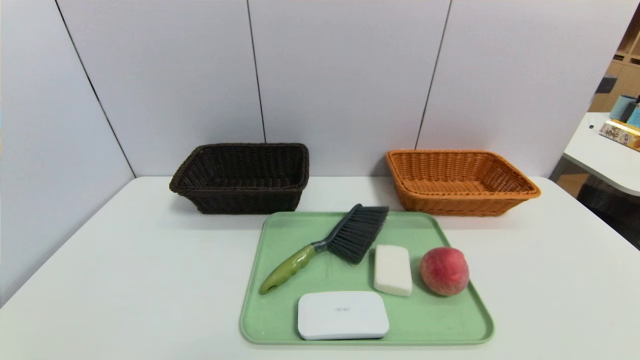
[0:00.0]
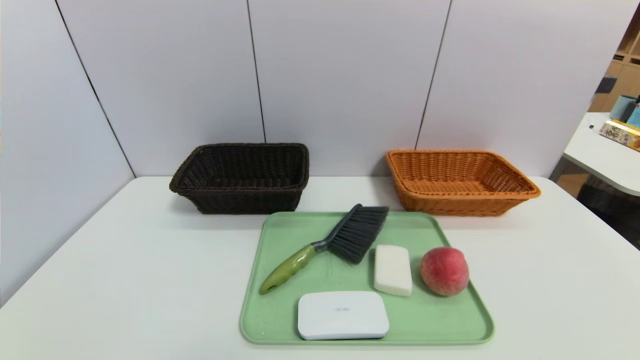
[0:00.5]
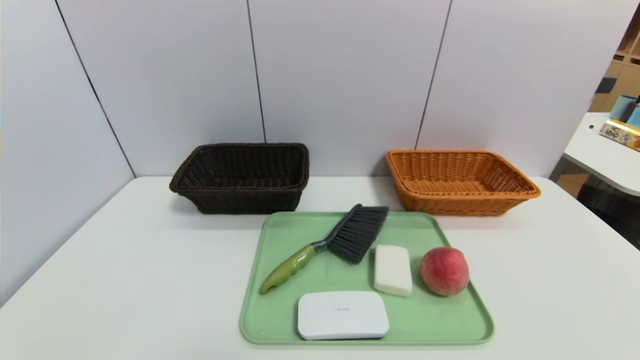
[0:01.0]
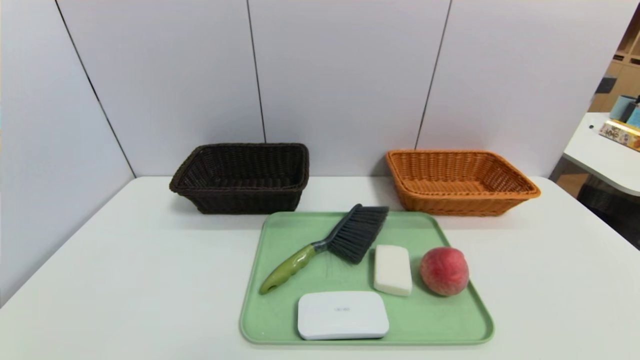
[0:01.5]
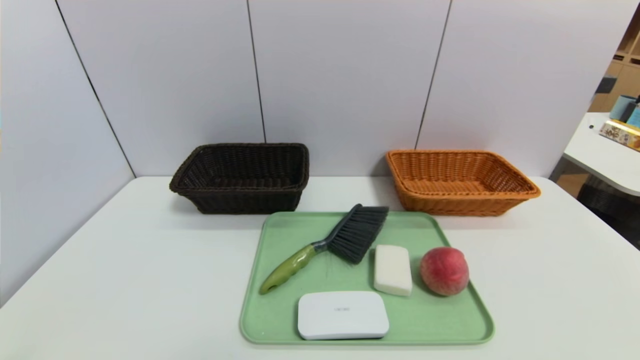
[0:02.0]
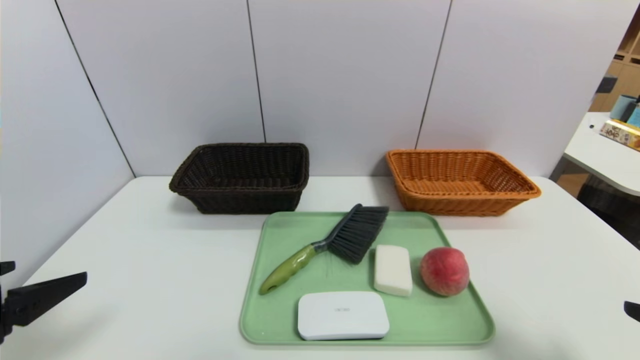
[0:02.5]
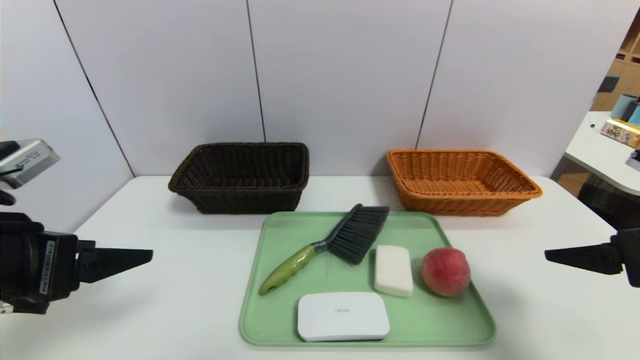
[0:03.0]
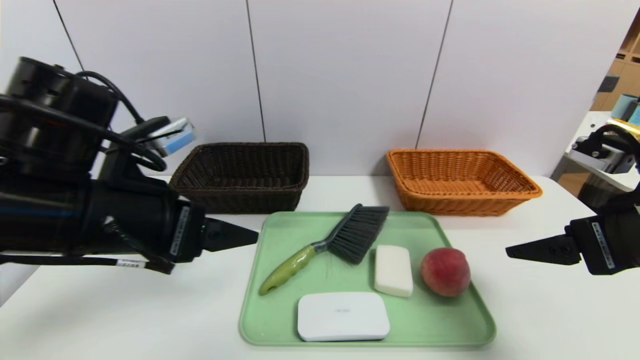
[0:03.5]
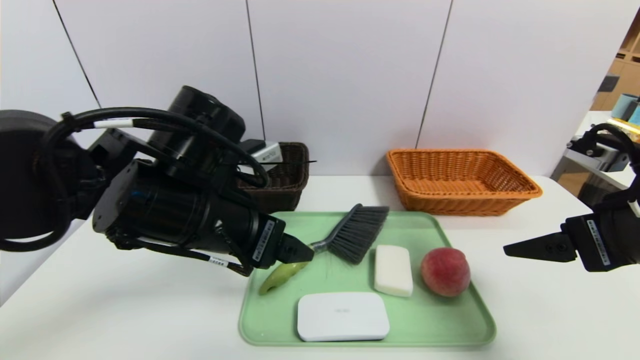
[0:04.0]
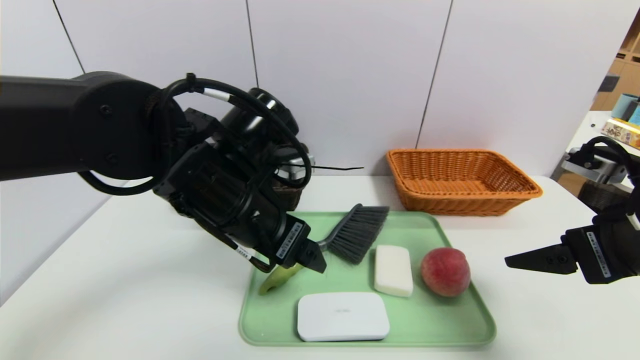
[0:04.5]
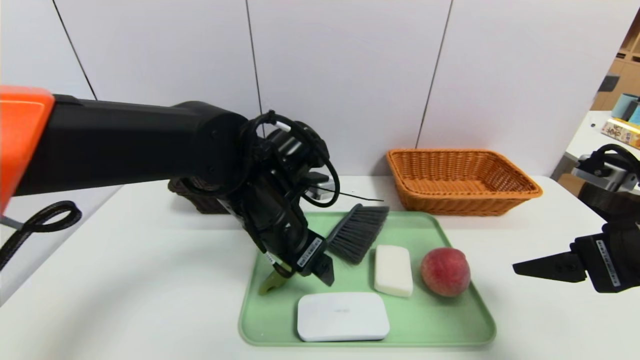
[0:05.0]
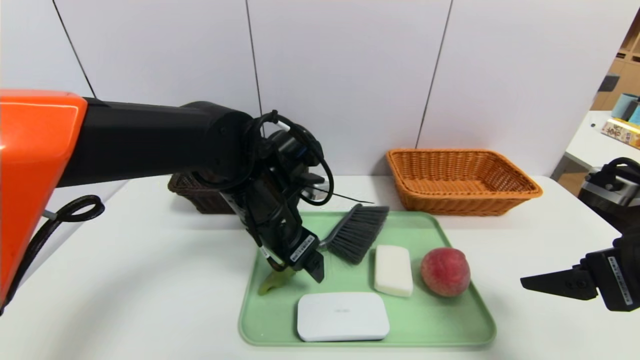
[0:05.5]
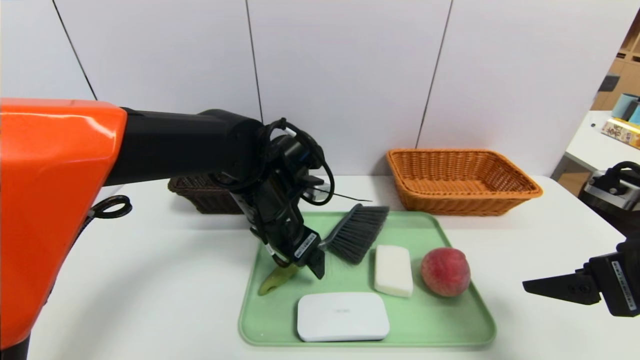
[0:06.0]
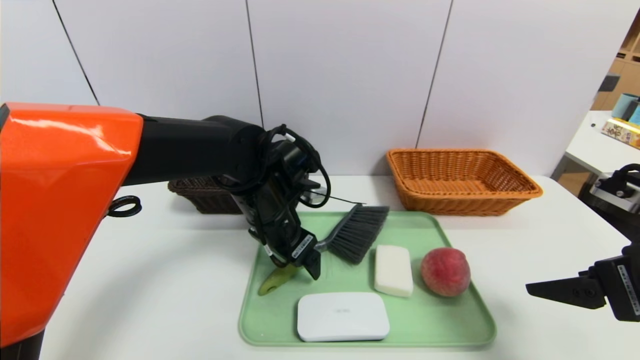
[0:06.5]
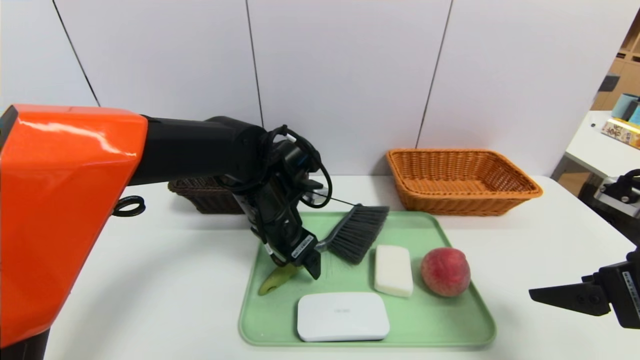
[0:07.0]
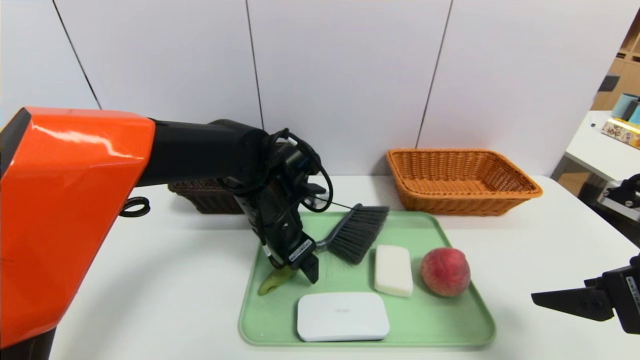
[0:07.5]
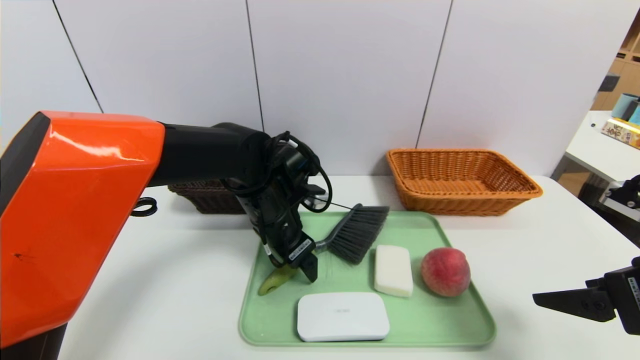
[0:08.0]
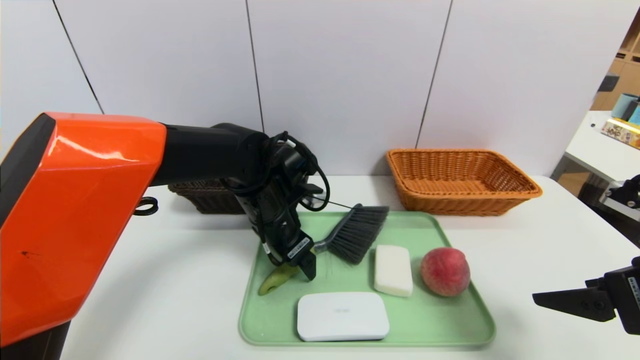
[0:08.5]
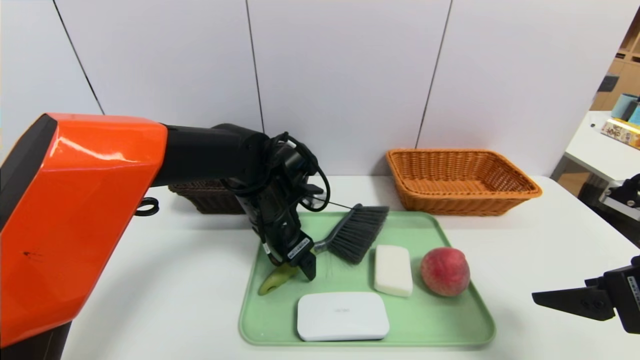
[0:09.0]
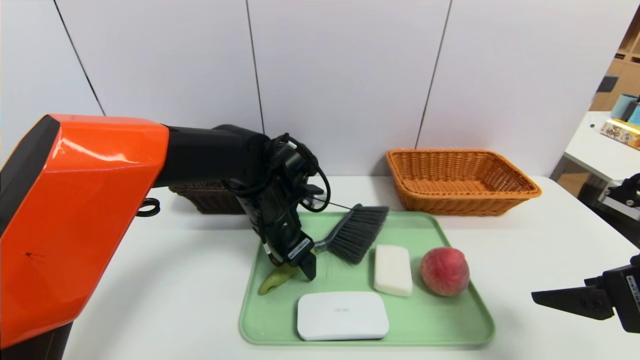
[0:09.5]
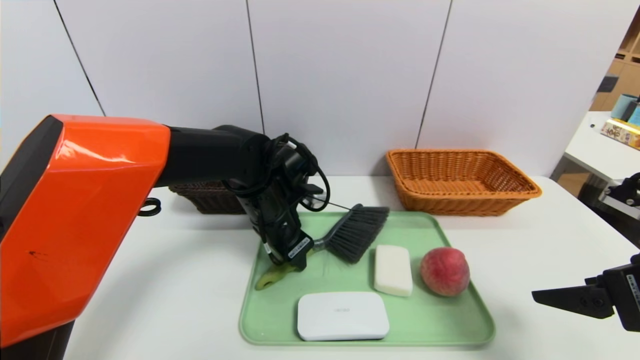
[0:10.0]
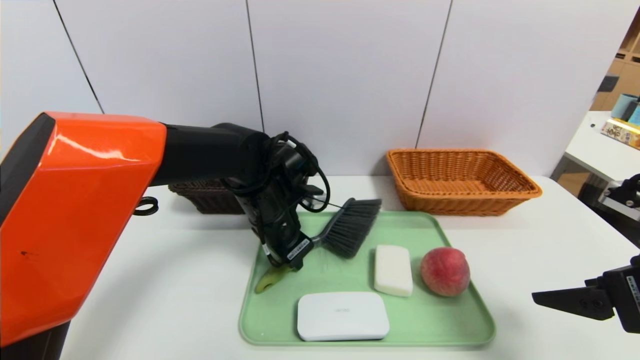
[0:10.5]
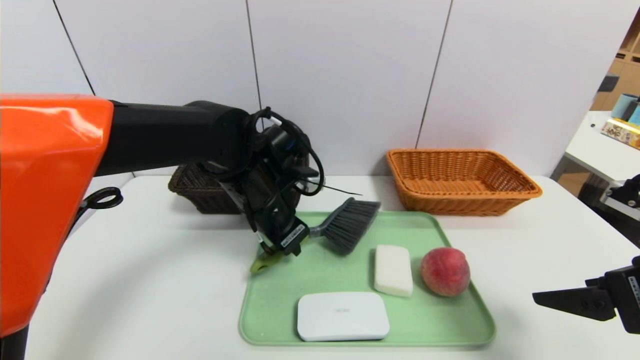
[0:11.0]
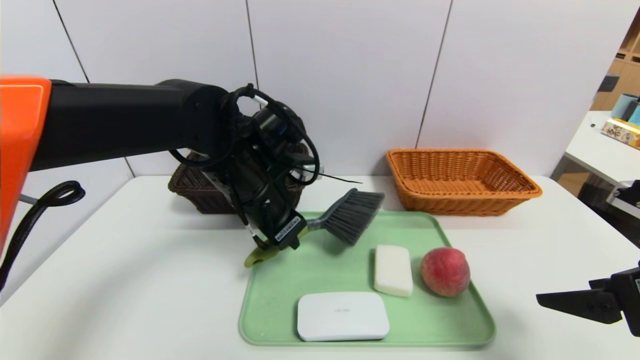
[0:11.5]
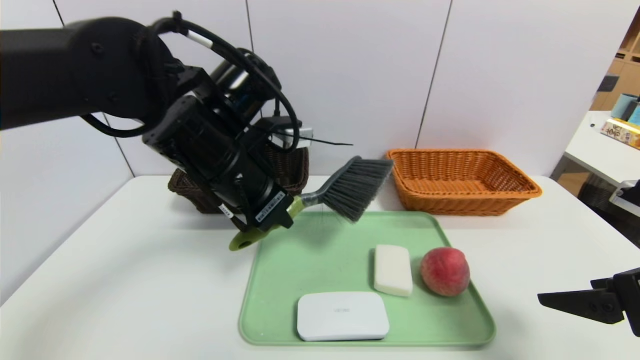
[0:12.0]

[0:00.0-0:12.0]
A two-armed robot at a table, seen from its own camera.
Task of the whole recording: place the food in the right basket with the right gripper, and place the non food items in the left basket with the left gripper.
0:02.0 to 0:04.0: The right gripper shifts approximately 20 cm forward. Meanwhile the left gripper heads forward and to the right, covering some 30 cm.
0:04.0 to 0:06.0: The left gripper shifts approximately 10 cm forward, downward and to the right.
0:06.0 to 0:08.0: The grippers move only a little.
0:08.0 to 0:10.0: The left gripper closes.
0:10.0 to 0:12.0: The left gripper travels upward and backward by about 15 cm.

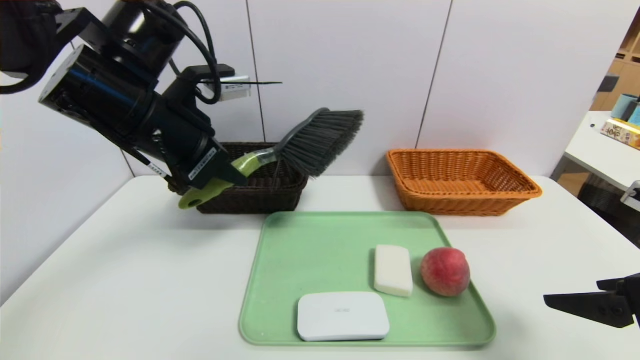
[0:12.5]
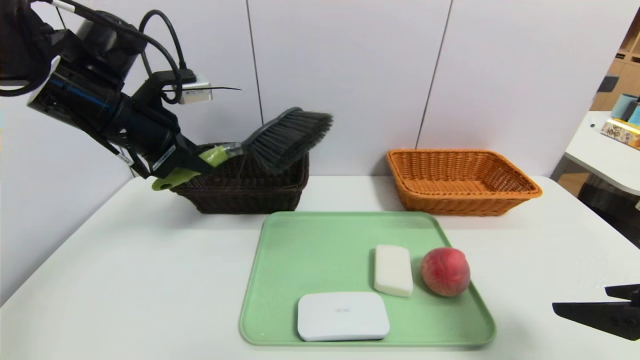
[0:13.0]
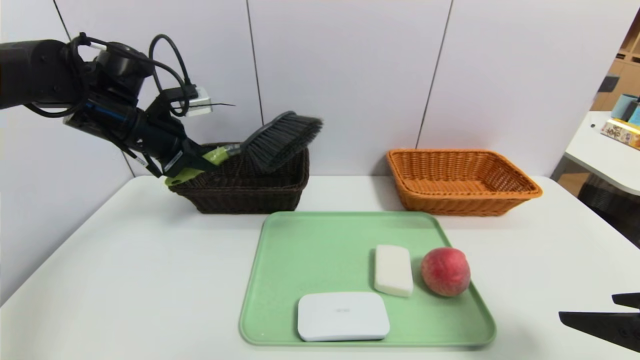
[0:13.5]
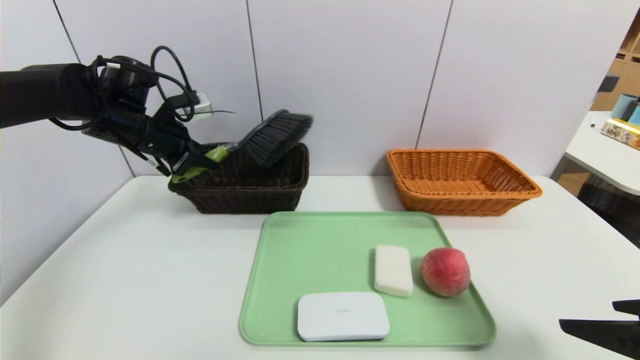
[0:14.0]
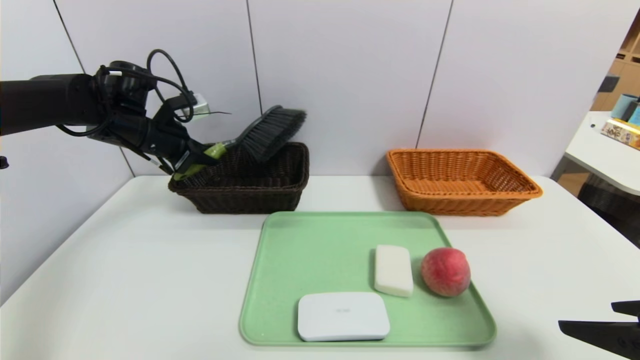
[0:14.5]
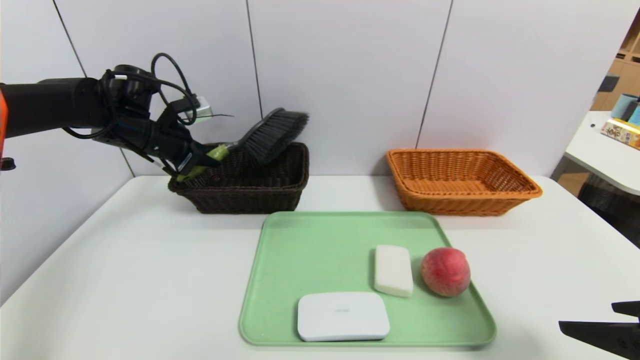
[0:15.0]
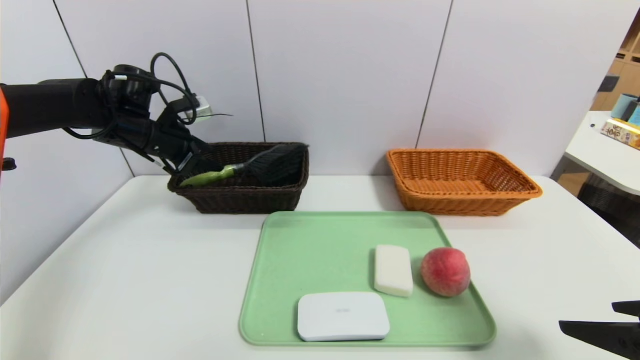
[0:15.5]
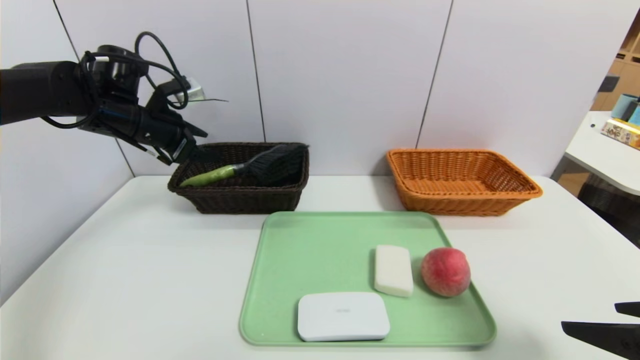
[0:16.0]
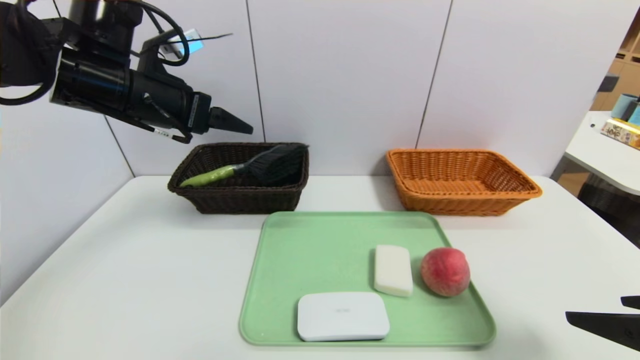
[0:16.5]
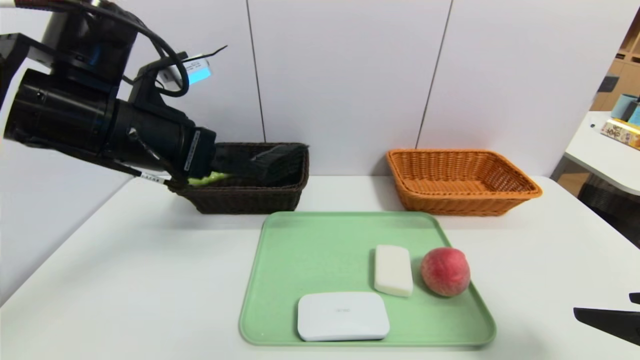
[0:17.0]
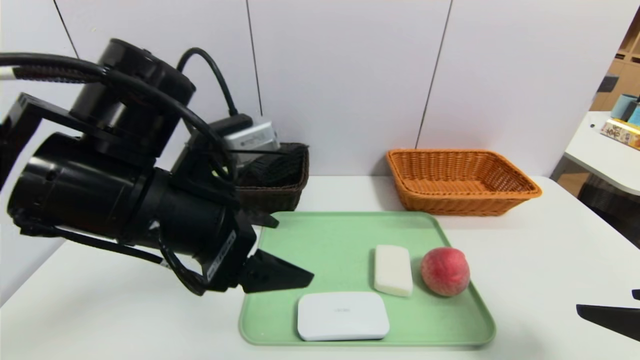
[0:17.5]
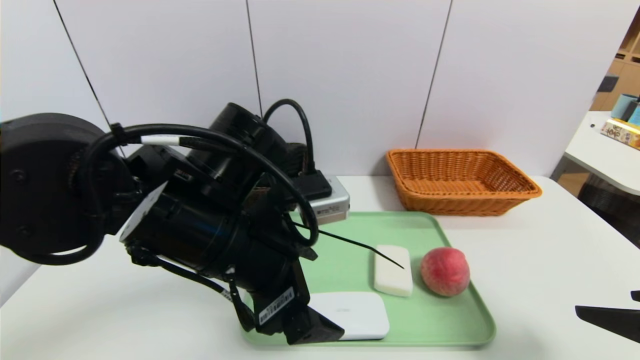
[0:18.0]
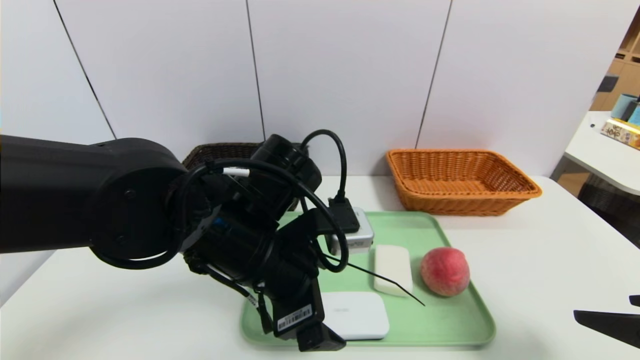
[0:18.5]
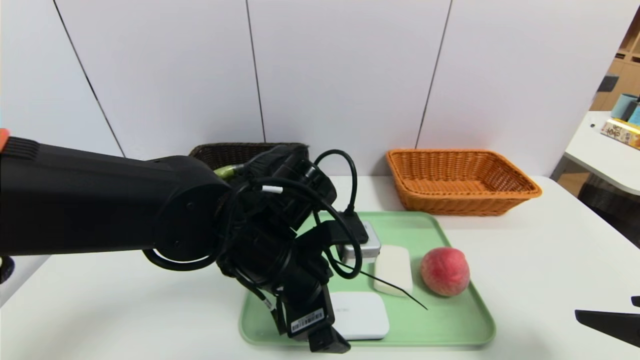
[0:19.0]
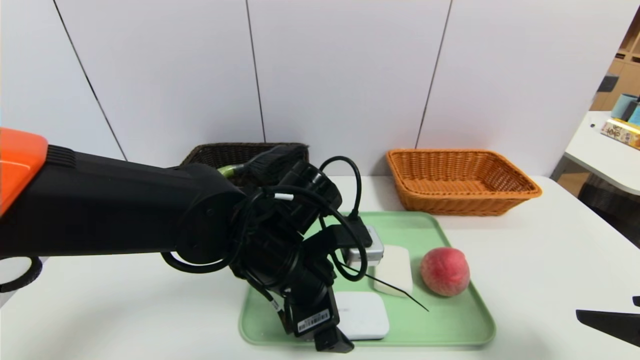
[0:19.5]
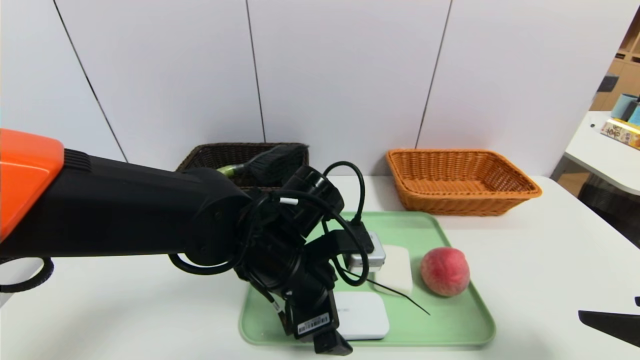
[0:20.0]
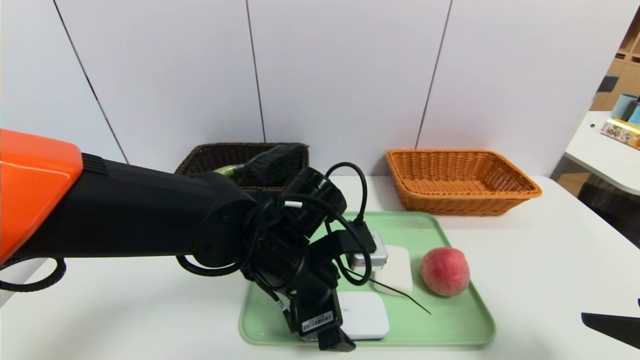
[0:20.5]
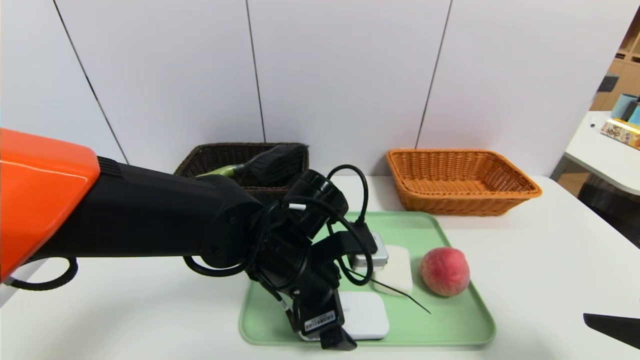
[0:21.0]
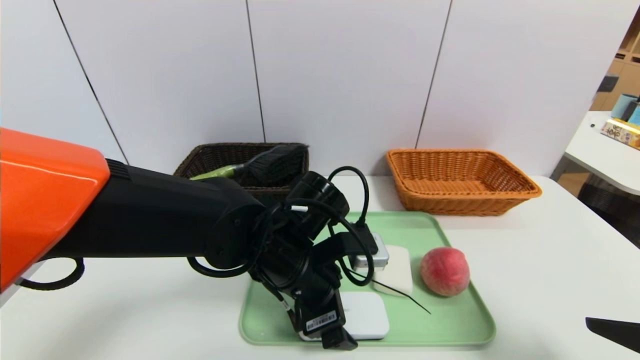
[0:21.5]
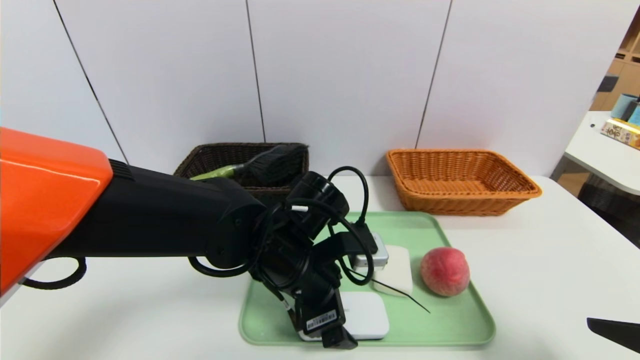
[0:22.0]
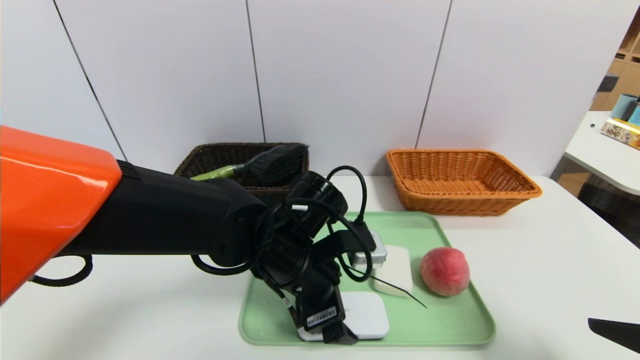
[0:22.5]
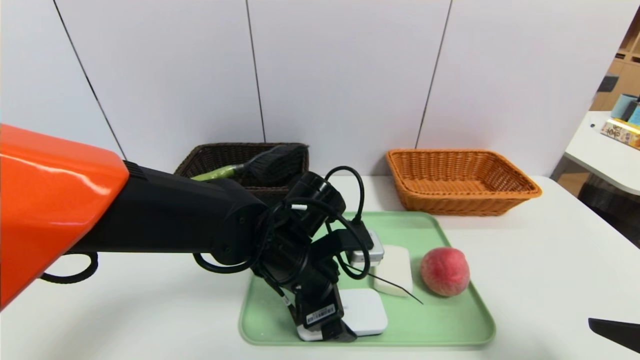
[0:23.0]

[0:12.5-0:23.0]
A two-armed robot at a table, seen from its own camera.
Task of the whole recording: place the food in the right basket with the right gripper, and place the non food items in the left basket with the left gripper.
Step, 0:12.5 to 0:15.5: Grasp the brush and put it in the left basket.
0:12.5 to 0:14.5: The left gripper heads forward, to the left and downward, covering roughly 20 cm.
0:14.5 to 0:16.5: The left gripper travels backward, upward and to the right by approximately 15 cm, and opens up.
0:16.5 to 0:19.0: The left gripper is displaced to the right, downward and backward by some 25 cm.
0:19.0 to 0:23.0: The grippers make only small movements.
